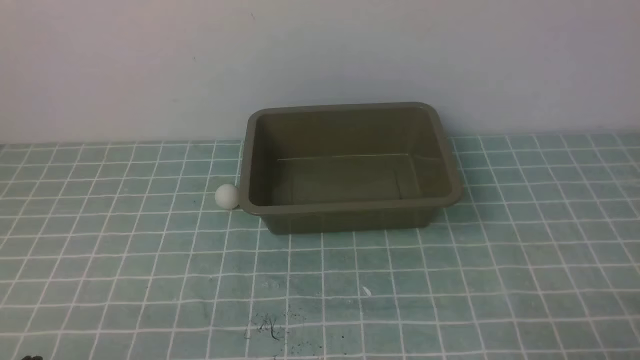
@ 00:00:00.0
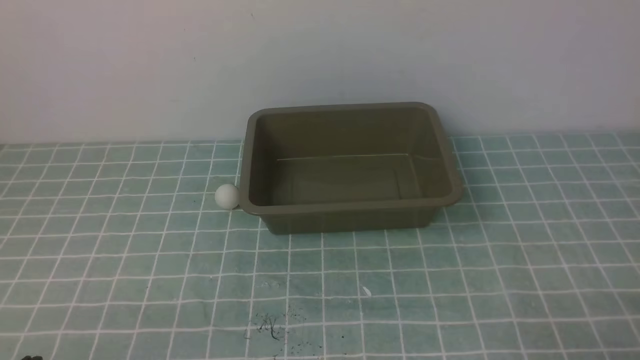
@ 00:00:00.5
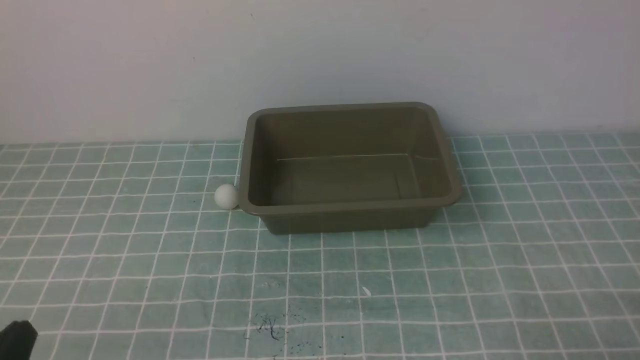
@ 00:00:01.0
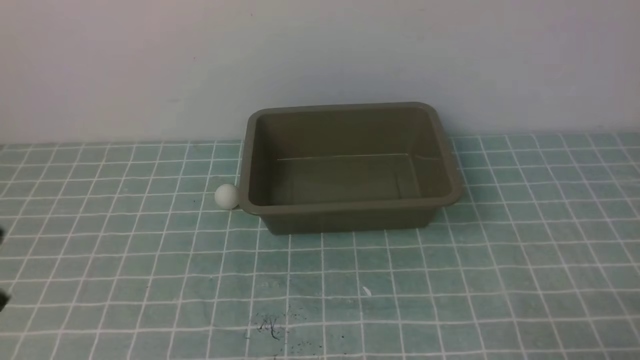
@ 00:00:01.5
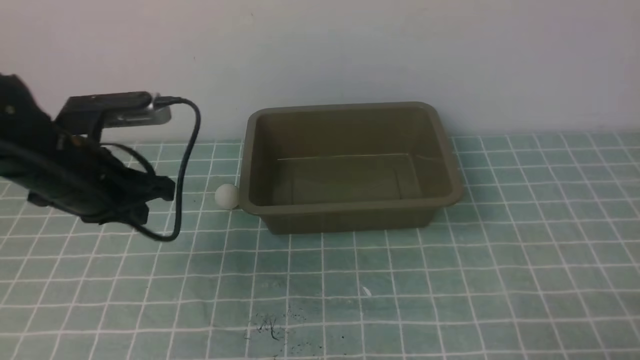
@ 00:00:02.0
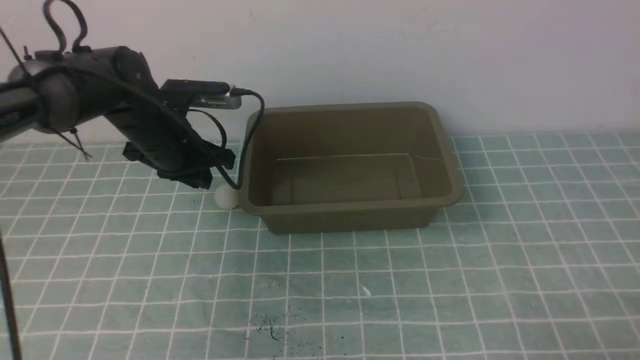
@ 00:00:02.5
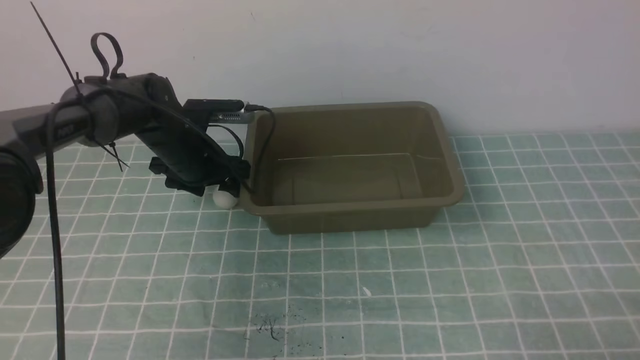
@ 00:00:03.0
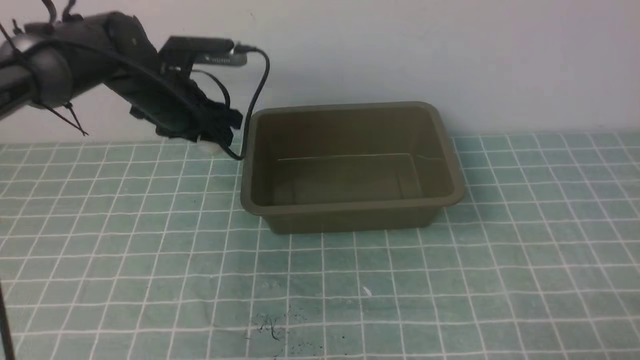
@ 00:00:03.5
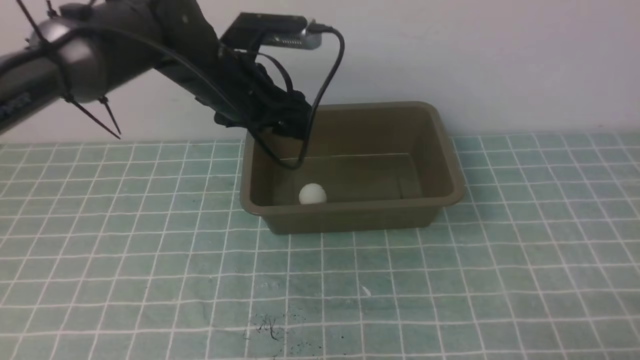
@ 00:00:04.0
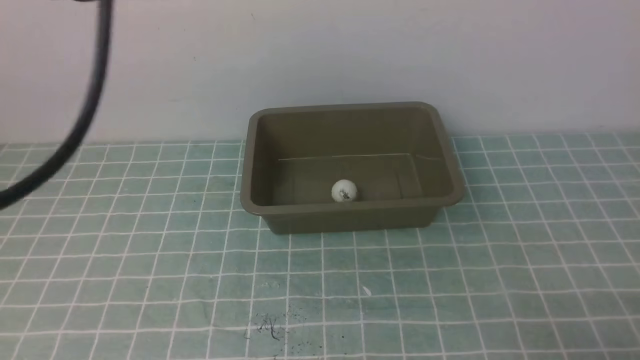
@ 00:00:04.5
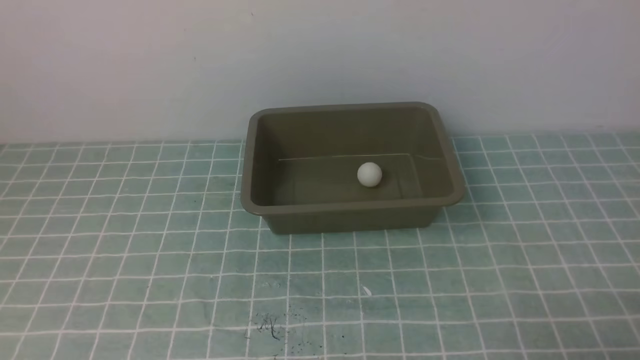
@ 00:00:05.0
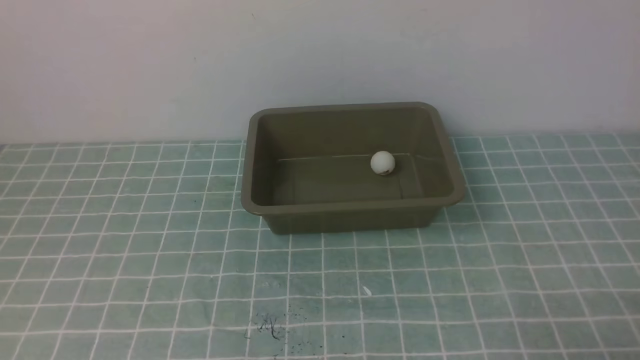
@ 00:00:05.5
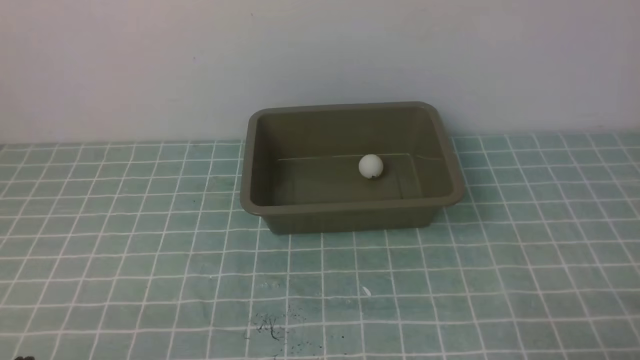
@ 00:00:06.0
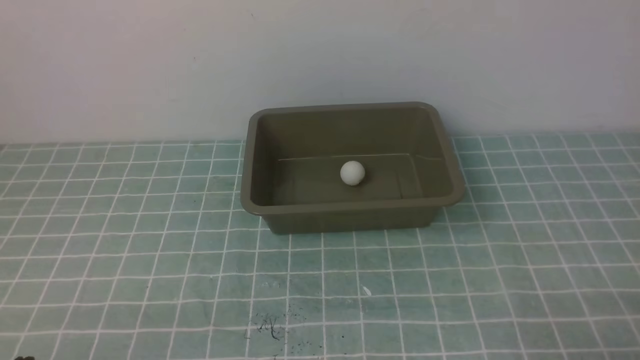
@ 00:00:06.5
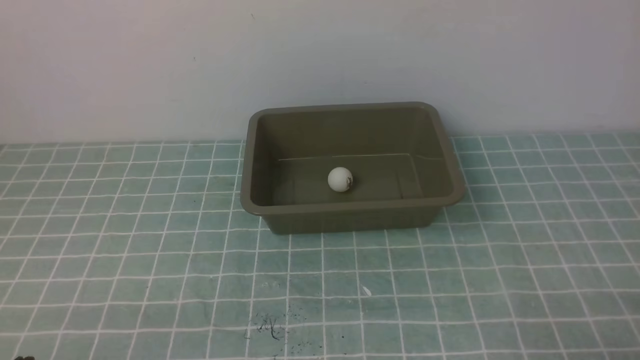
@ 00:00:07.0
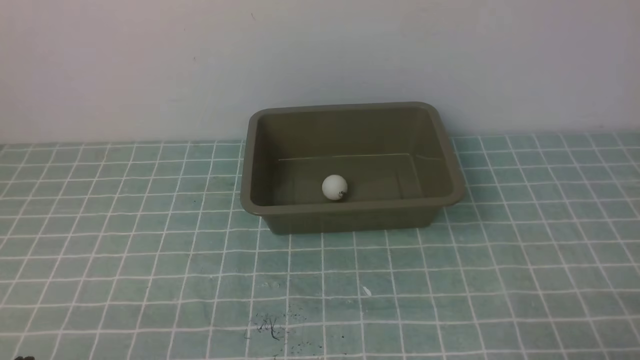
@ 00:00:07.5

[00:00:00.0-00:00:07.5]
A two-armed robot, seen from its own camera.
Step, 00:00:00.0 to 00:00:03.0: use the left arm to clamp the table tennis ball closest to it.
00:00:02.0 to 00:00:04.0: The left gripper is displaced forward and to the right by some 20 cm, and opens its fingers.
00:00:04.0 to 00:00:05.5: The left gripper travels backward by approximately 35 cm, and closes.
